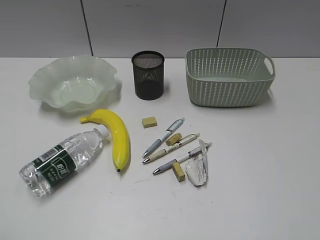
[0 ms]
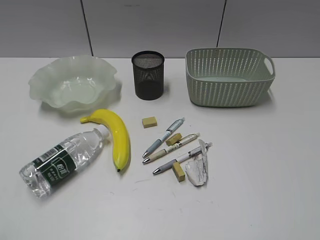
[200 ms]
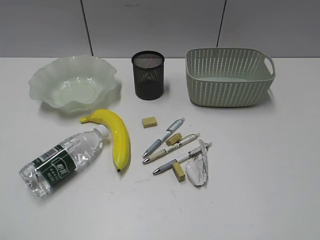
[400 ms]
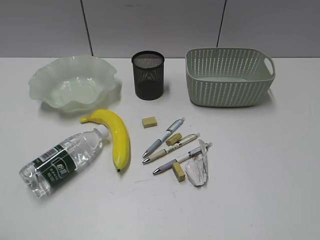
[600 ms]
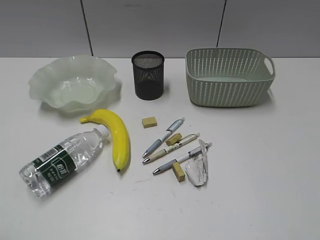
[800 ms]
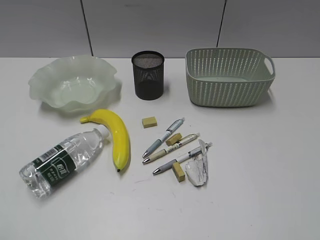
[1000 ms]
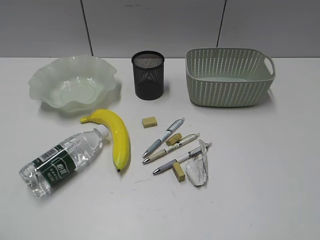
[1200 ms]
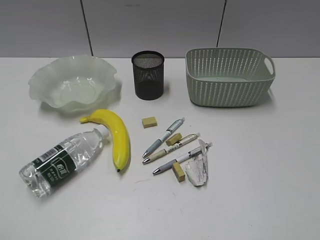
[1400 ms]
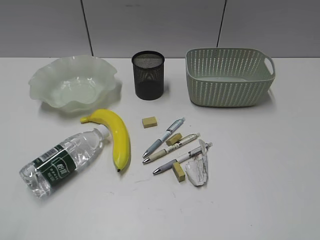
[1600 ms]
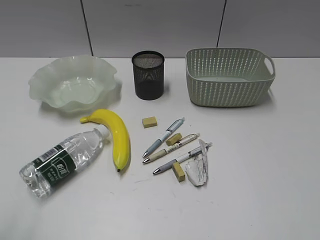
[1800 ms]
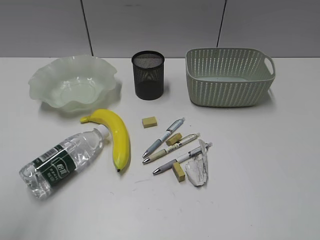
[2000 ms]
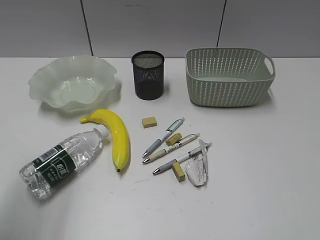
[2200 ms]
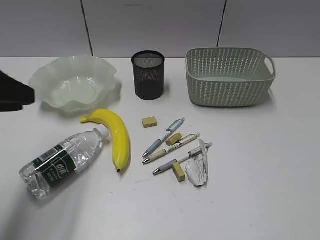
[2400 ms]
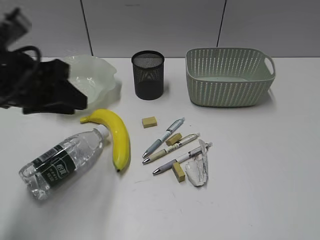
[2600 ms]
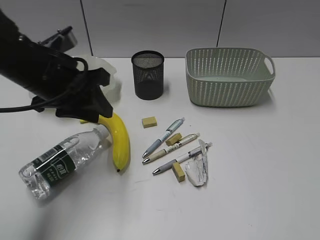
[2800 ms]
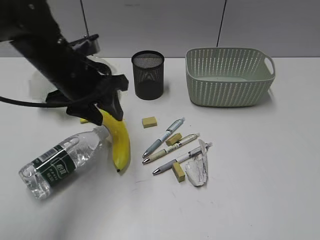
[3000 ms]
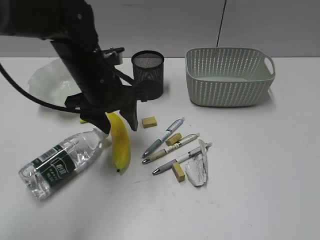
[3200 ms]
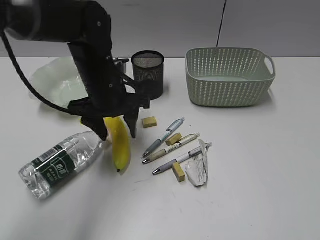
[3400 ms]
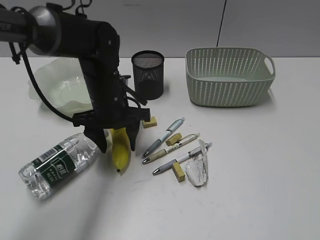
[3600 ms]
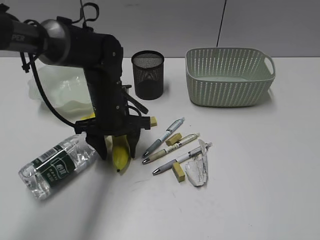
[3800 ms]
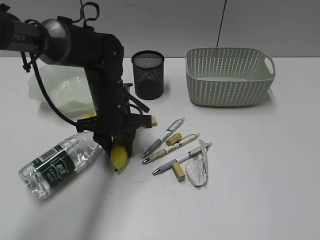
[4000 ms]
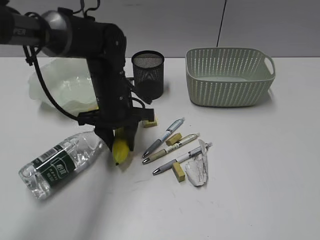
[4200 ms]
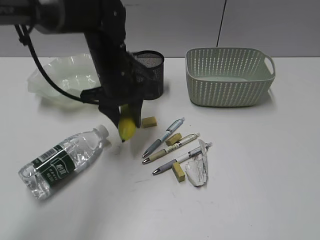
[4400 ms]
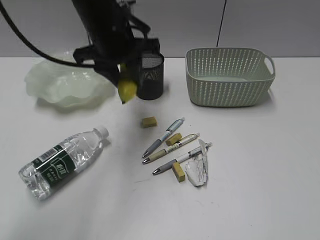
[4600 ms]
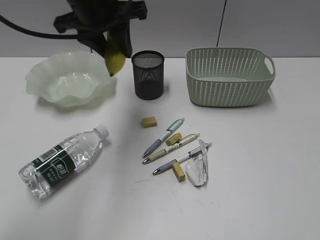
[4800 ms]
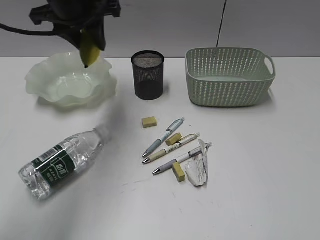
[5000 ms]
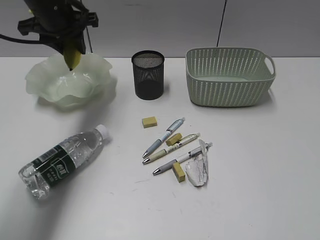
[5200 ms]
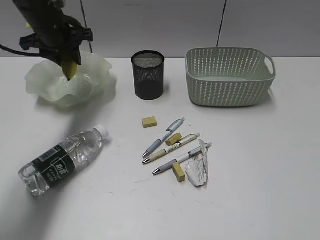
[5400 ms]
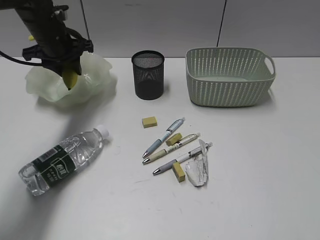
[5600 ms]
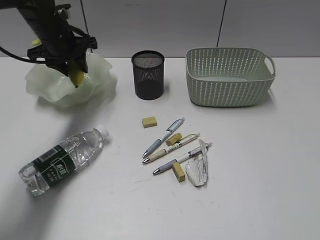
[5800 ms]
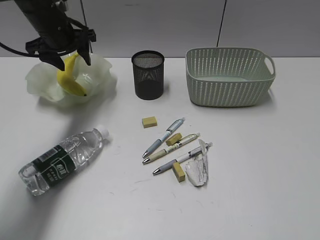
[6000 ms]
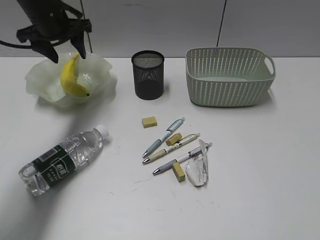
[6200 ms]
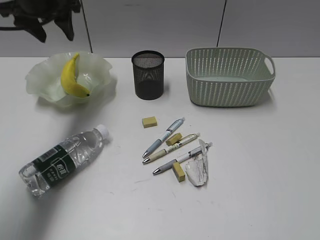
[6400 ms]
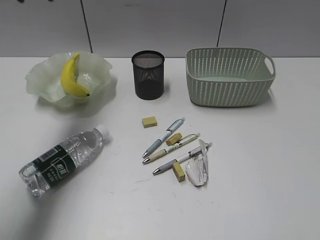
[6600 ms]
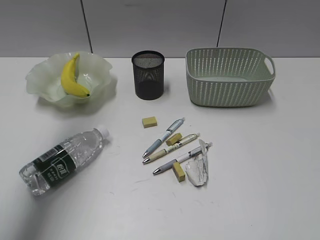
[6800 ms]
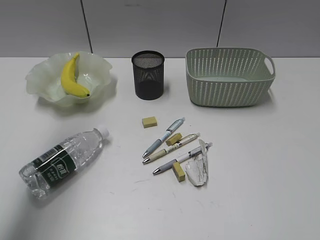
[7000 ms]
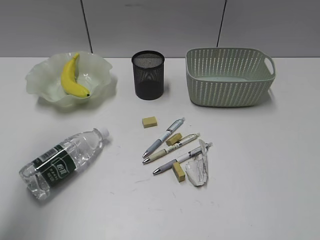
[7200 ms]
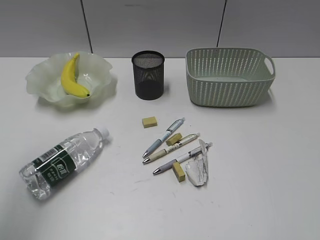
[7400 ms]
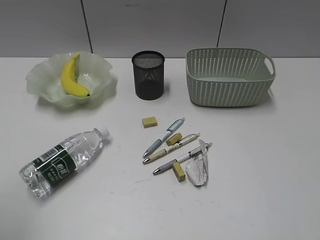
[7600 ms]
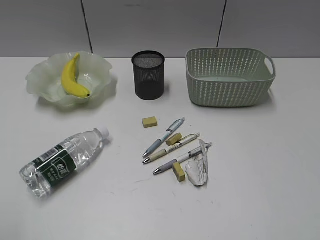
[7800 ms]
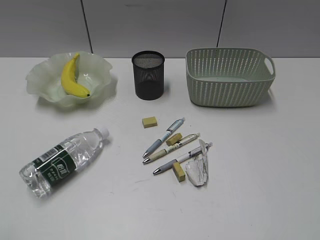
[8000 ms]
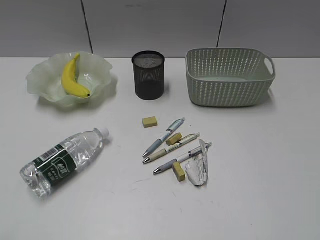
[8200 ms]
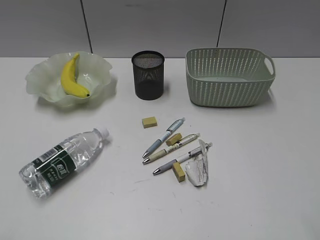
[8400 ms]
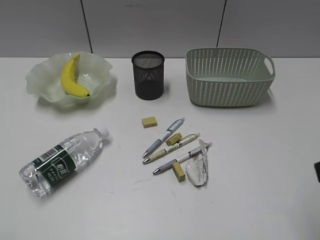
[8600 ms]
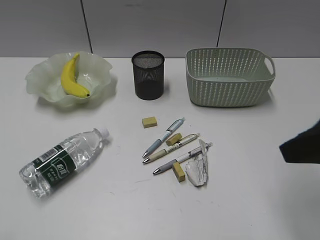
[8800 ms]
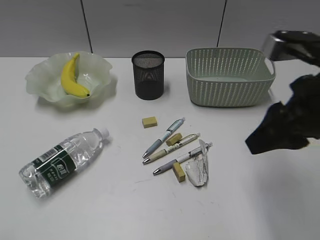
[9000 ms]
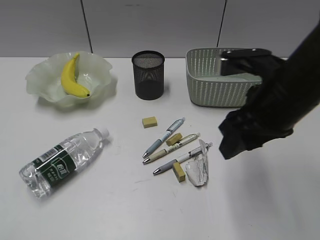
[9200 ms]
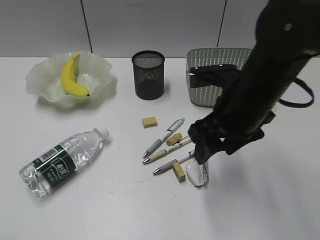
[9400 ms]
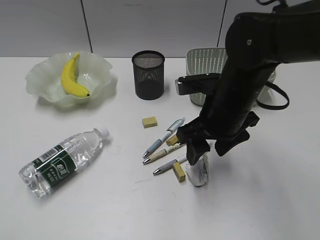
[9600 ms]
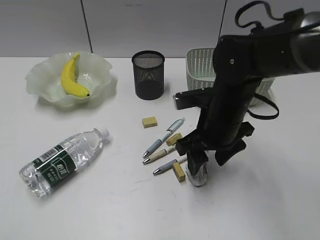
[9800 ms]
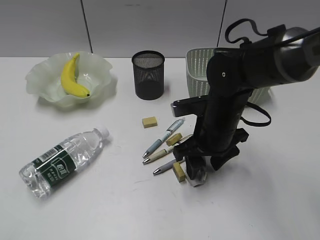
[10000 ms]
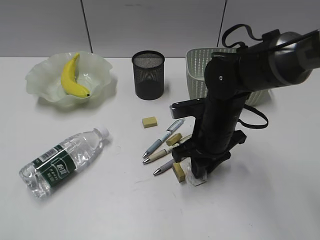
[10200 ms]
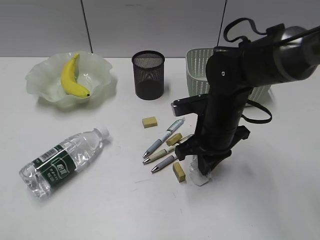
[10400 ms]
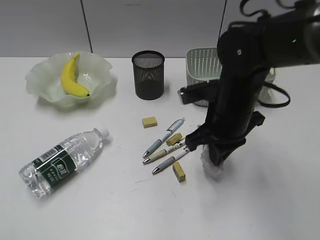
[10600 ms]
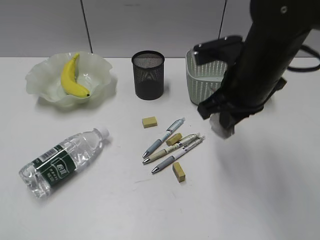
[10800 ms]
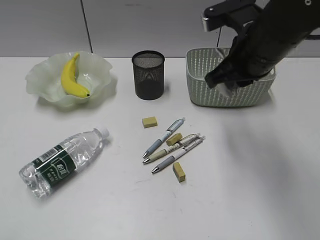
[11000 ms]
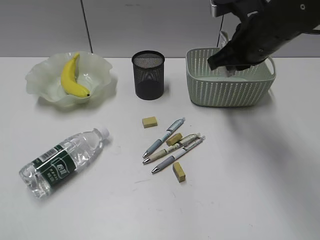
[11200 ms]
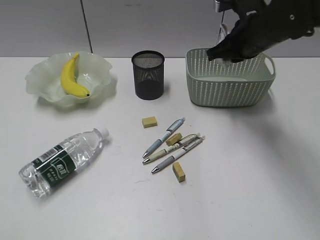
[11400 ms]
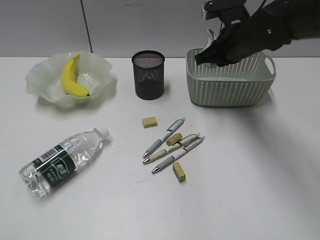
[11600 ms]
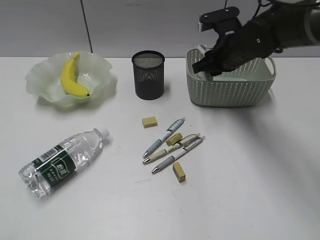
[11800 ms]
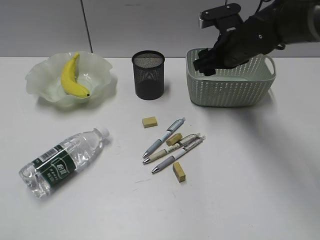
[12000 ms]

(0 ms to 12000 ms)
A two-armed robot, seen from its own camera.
Step, 1600 ms - 4000 ms: Grasp the banana with left gripper.
Step, 4200 ms - 6000 ms: Place the banana in the plate with left gripper.
Step, 6200 ms - 10400 ms: Grasp the waste paper with right gripper.
1600 ms - 3000 ms: The left gripper goes some 35 cm forward and to the right.
3000 ms - 4400 ms: The left gripper travels to the right by approximately 5 cm, and travels downward and back again, roughly 10 cm each way.
4400 ms - 6000 ms: The left gripper shifts roughly 15 cm to the left and forward, and opens up.
6000 ms - 7600 ms: The left gripper travels backward by about 40 cm.
7600 ms - 9000 ms: The left gripper shifts some 10 cm backward and downward; the right gripper travels forward and to the left by some 25 cm.
9000 ms - 10400 ms: The right gripper is displaced downward, to the left and forward by about 20 cm, and closes its fingers.
10400 ms - 12000 ms: The right gripper heads forward and upward, covering about 15 cm, and opens.

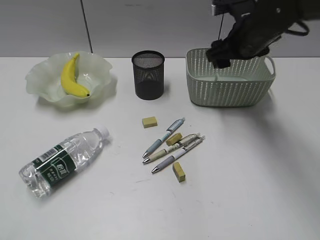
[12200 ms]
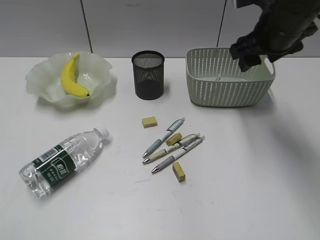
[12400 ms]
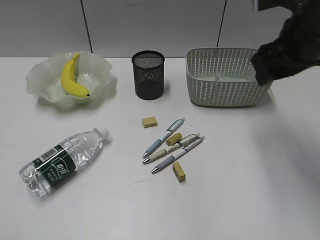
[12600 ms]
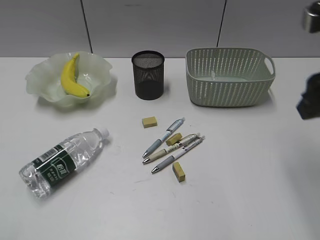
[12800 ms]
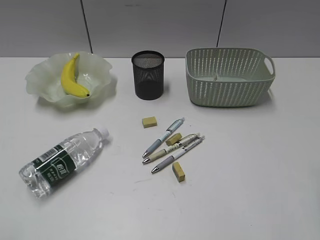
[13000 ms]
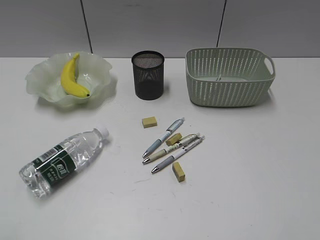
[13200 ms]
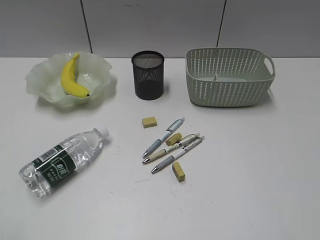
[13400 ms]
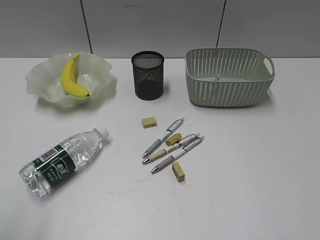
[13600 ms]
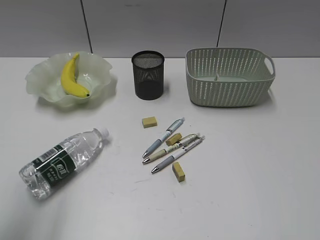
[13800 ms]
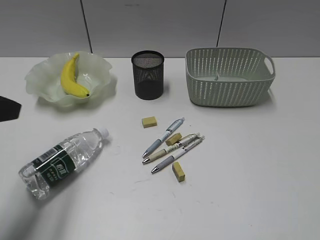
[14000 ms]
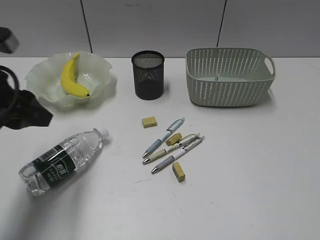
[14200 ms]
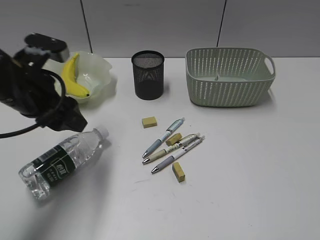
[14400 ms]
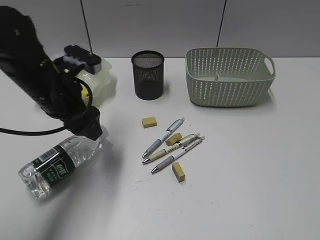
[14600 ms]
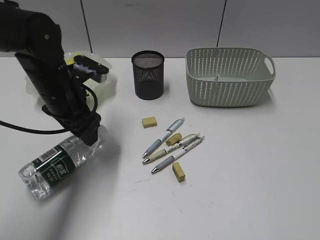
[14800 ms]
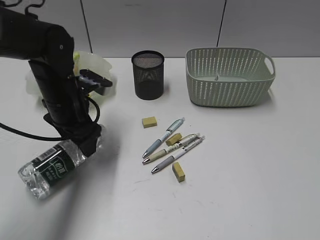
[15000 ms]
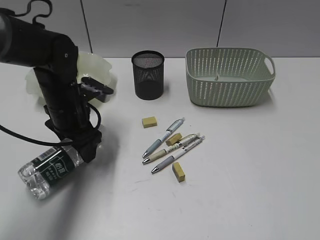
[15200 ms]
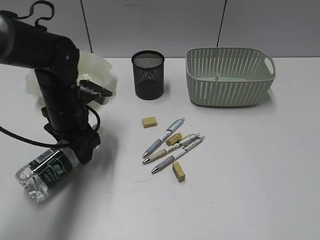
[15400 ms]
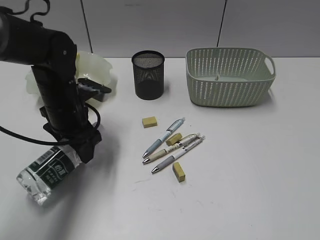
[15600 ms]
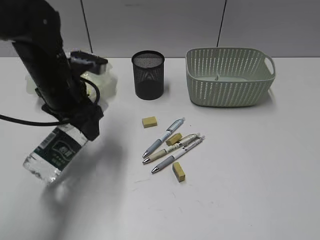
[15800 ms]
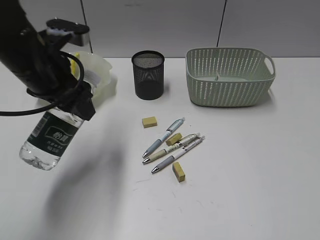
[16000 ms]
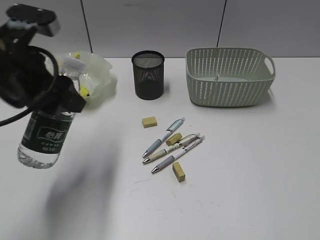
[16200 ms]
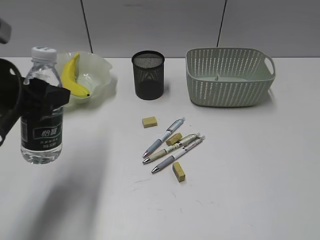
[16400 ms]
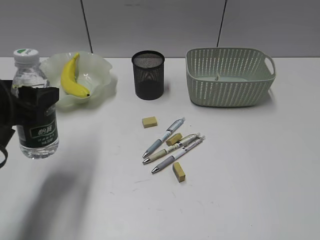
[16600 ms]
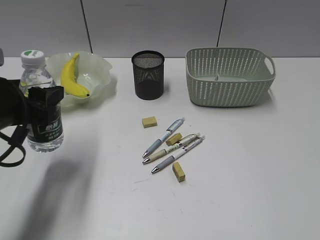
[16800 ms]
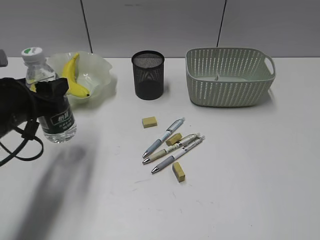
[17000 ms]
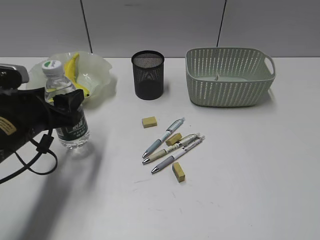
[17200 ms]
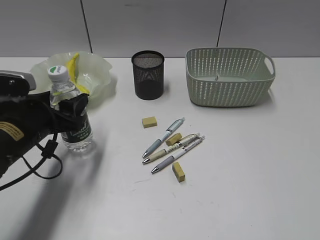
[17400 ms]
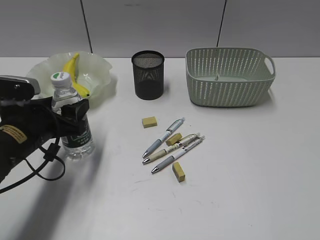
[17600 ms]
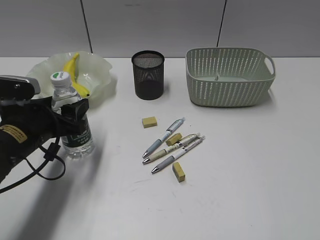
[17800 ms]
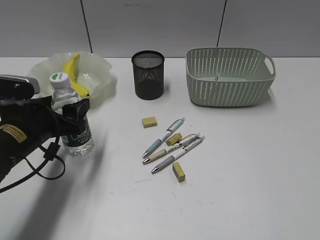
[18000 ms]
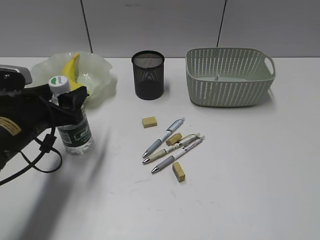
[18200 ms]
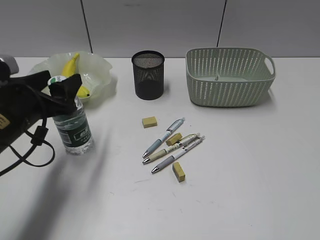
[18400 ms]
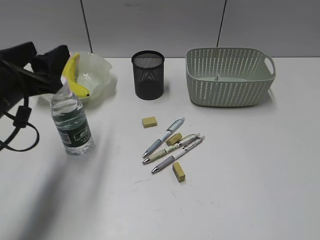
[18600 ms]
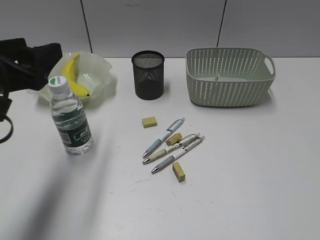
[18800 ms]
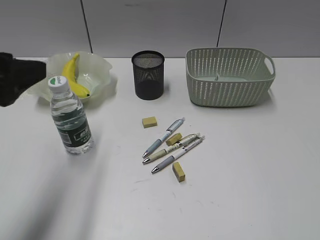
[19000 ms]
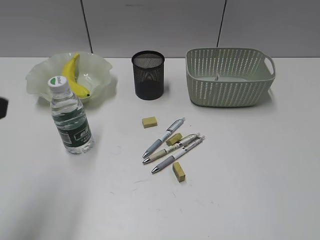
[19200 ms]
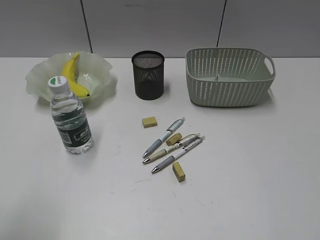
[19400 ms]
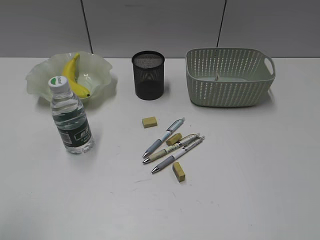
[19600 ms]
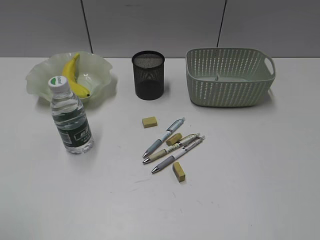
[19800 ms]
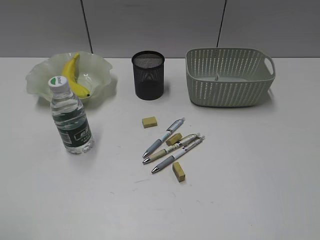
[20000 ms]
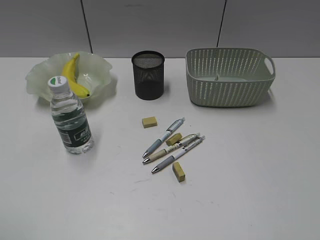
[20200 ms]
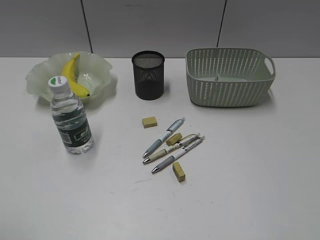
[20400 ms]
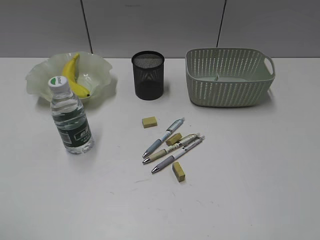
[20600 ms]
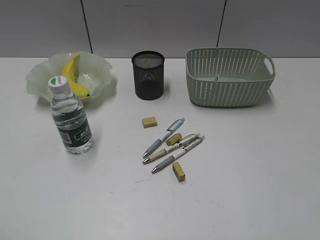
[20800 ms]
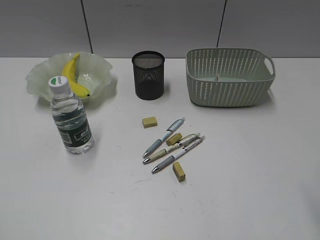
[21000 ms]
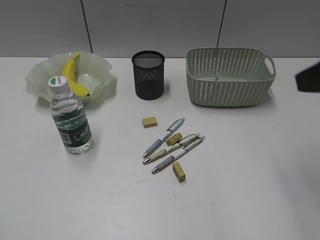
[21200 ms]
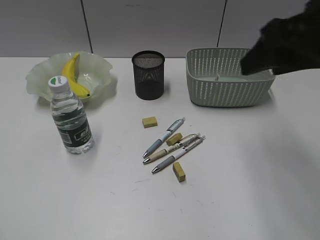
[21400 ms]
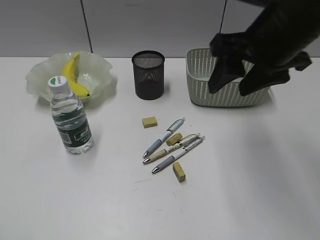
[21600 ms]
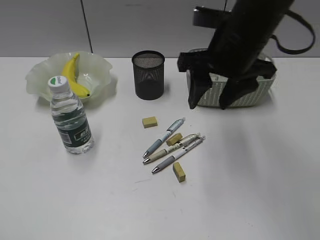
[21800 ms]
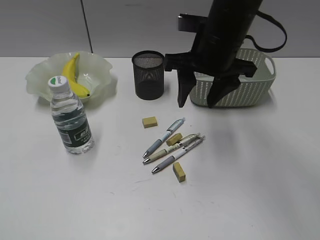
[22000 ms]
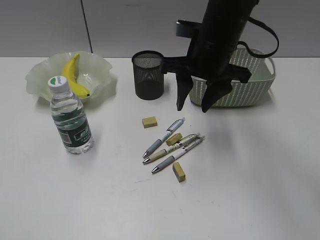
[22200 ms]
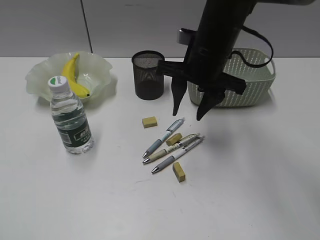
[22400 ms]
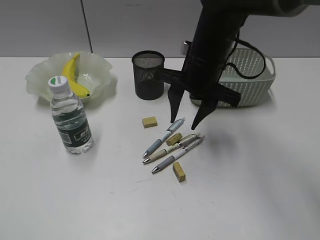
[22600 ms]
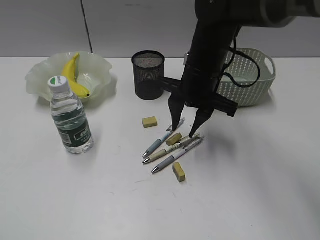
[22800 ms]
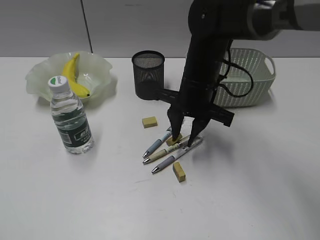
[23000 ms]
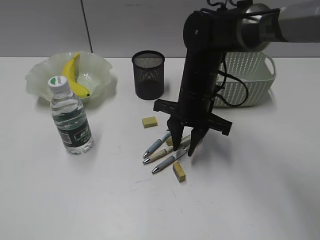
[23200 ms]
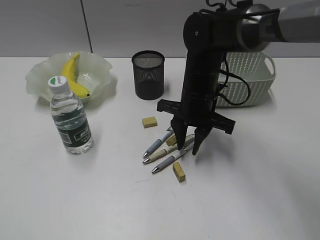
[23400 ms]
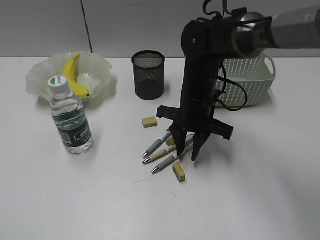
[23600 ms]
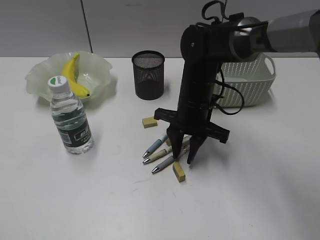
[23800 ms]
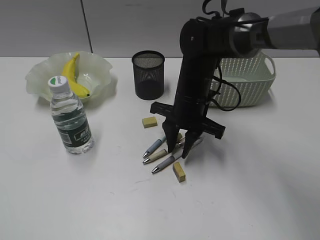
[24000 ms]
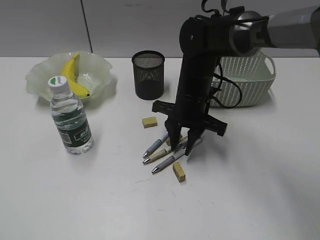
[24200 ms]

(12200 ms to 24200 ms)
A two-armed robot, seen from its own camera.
Step, 12200 ms - 15400 ms: Grasp the bottle with left gripper.
Step, 15600 ms - 18400 ms: Stand the bottle with left gripper.
12200 ms - 13800 ms: The right gripper travels backward by some 40 cm; the left gripper heads forward, covering some 10 cm.
13800 ms - 15200 ms: The left gripper moves forward, downward and to the right, some 30 cm, and opens its fingers.
15200 ms - 16600 ms: The left gripper goes some 15 cm backward, upward and to the left.
16600 ms - 18200 ms: The left gripper moves downward, about 5 cm.
18200 ms - 19800 ms: The left gripper moves backward, upward and to the left, roughly 30 cm.
19800 ms - 21200 ms: The right gripper travels forward and to the left by approximately 20 cm.
21200 ms - 22600 ms: The right gripper shifts some 25 cm to the left, forward and downward, and closes.
22600 ms - 24200 ms: The right gripper is displaced downward by about 10 cm.
